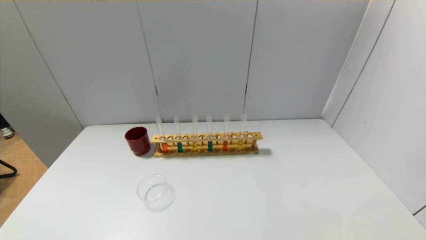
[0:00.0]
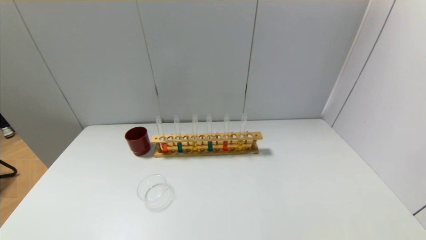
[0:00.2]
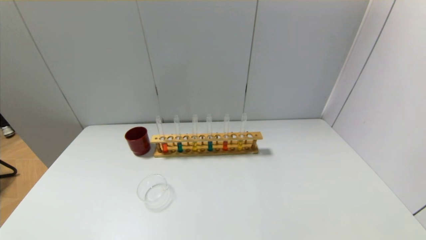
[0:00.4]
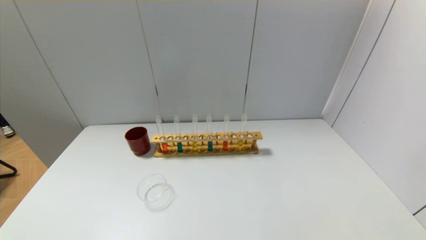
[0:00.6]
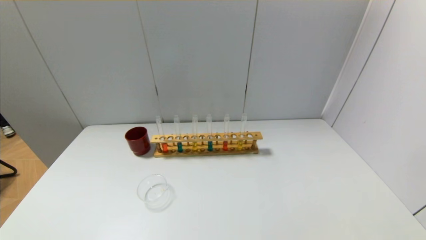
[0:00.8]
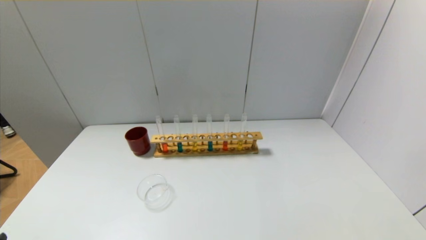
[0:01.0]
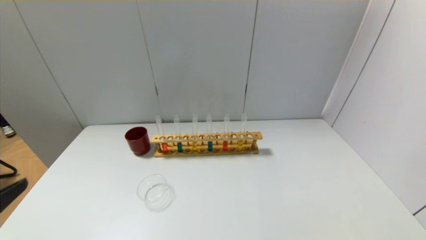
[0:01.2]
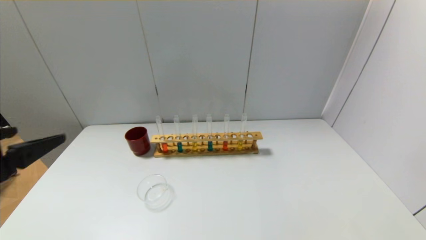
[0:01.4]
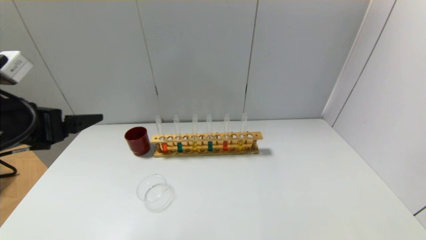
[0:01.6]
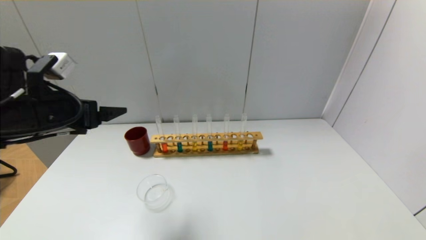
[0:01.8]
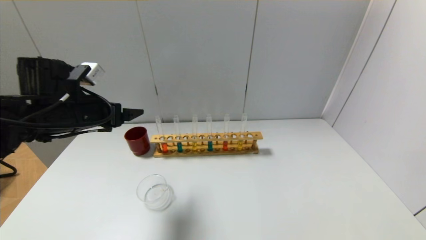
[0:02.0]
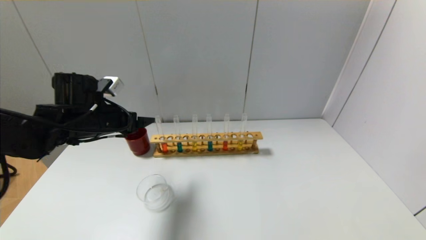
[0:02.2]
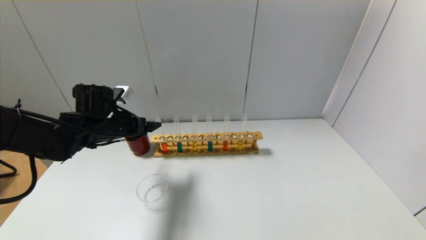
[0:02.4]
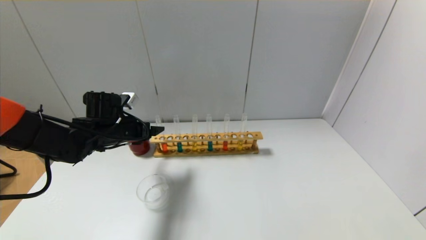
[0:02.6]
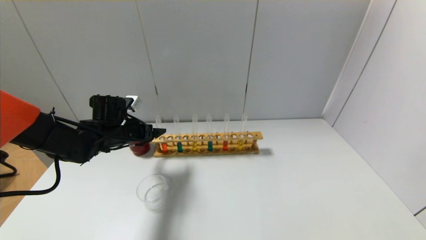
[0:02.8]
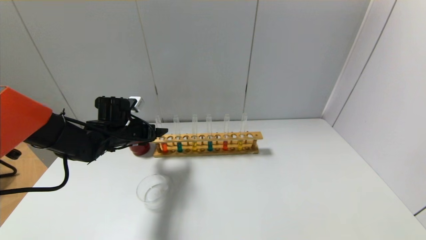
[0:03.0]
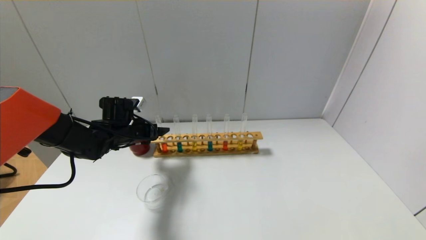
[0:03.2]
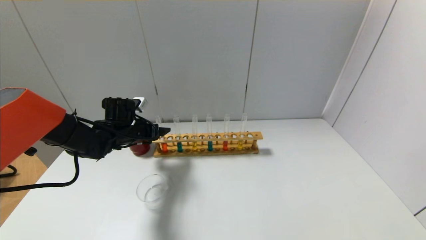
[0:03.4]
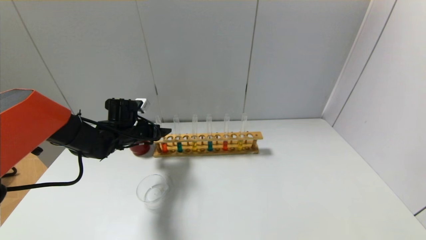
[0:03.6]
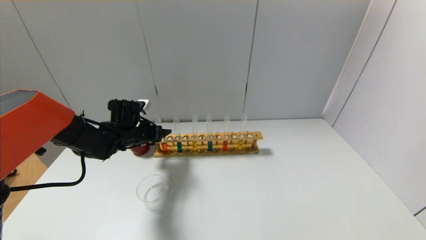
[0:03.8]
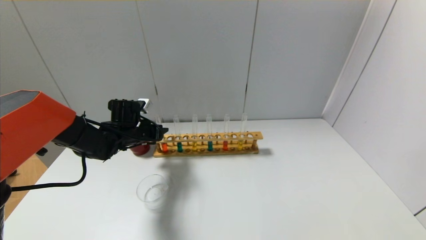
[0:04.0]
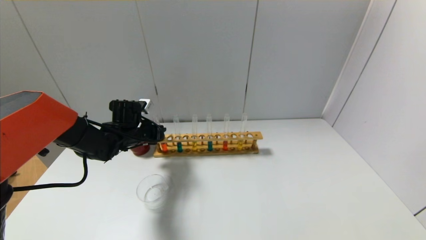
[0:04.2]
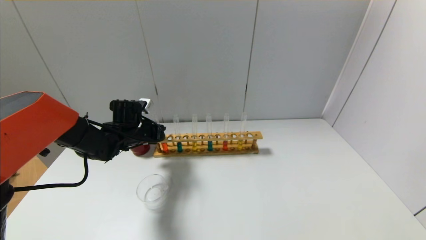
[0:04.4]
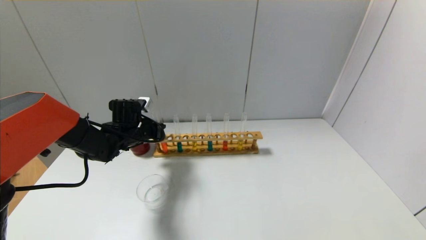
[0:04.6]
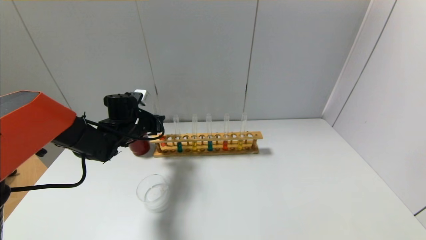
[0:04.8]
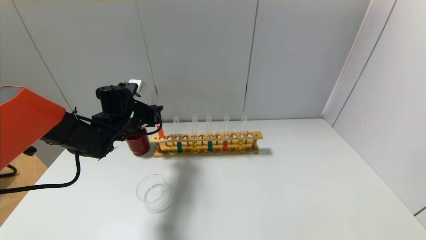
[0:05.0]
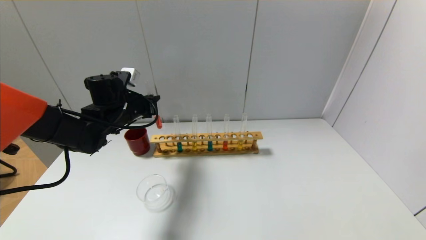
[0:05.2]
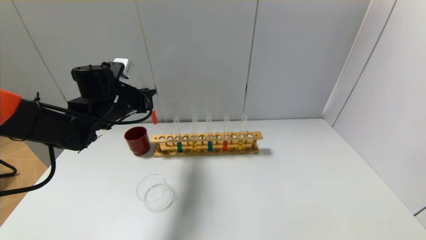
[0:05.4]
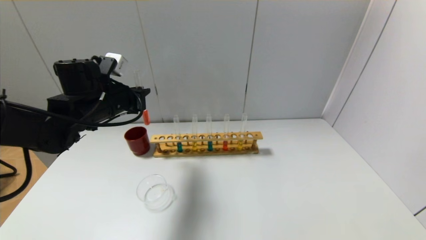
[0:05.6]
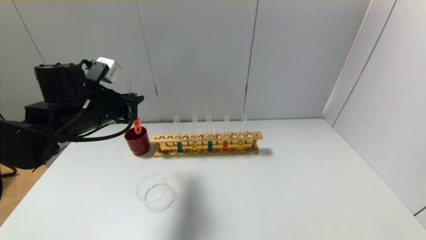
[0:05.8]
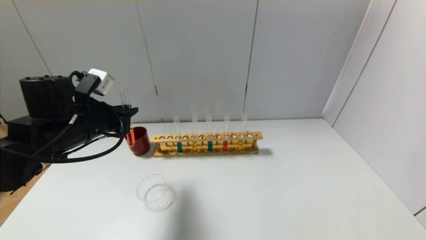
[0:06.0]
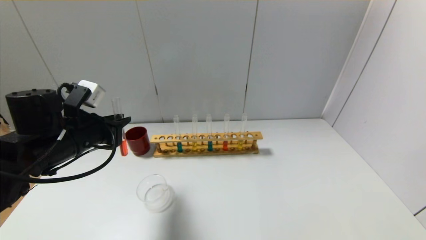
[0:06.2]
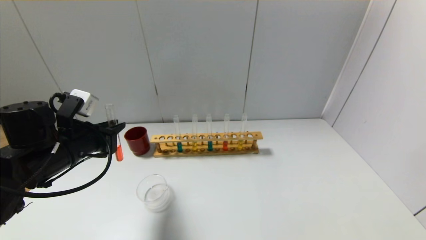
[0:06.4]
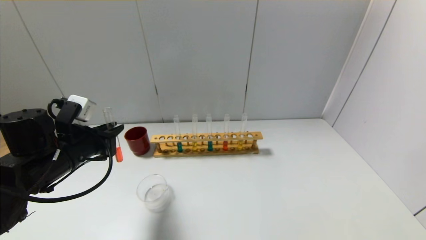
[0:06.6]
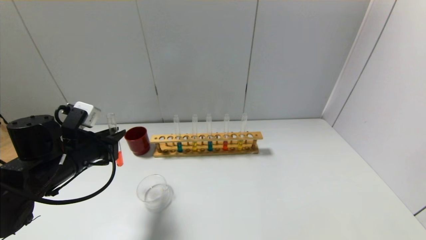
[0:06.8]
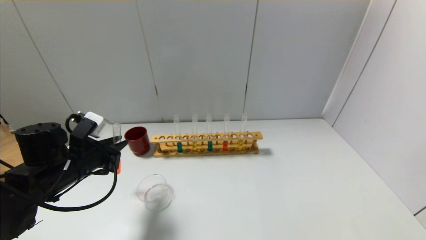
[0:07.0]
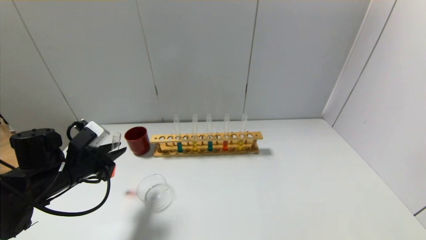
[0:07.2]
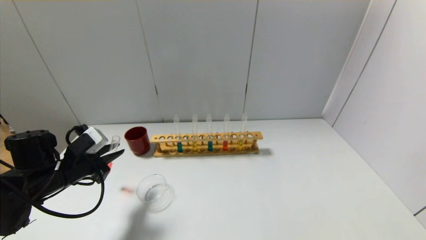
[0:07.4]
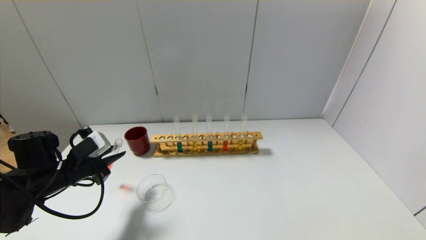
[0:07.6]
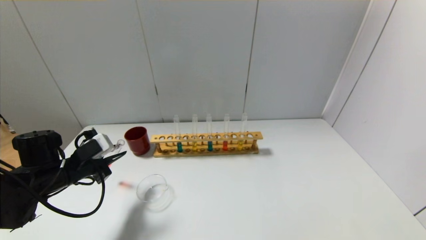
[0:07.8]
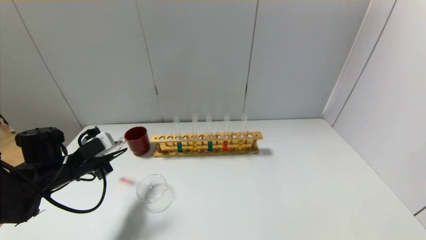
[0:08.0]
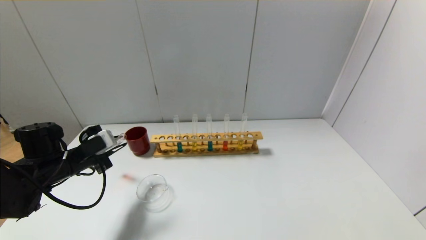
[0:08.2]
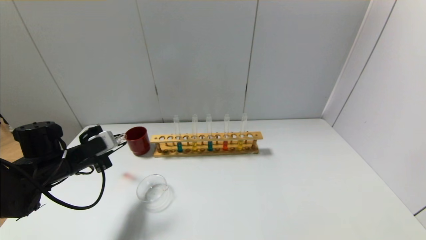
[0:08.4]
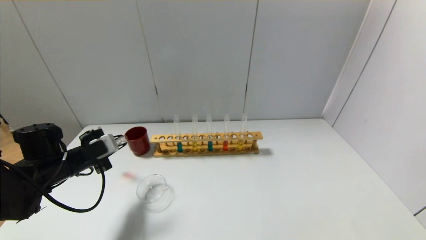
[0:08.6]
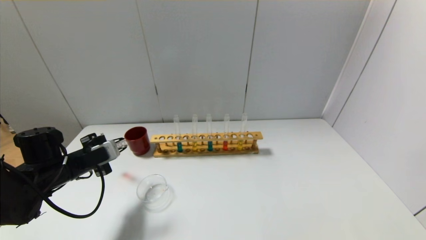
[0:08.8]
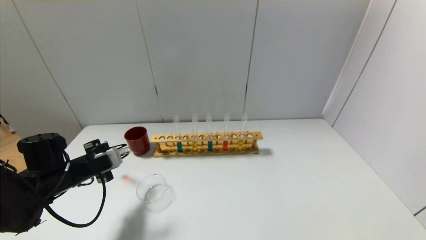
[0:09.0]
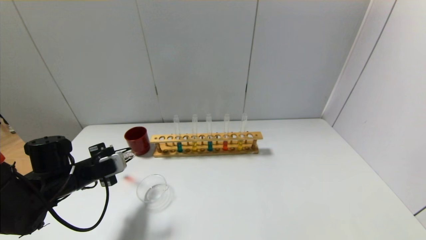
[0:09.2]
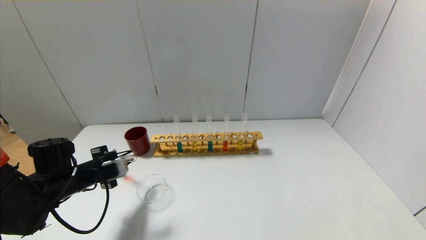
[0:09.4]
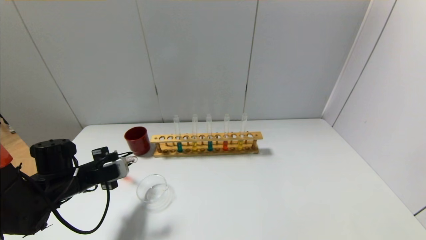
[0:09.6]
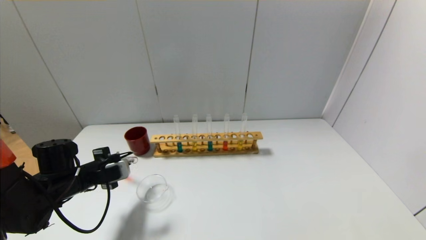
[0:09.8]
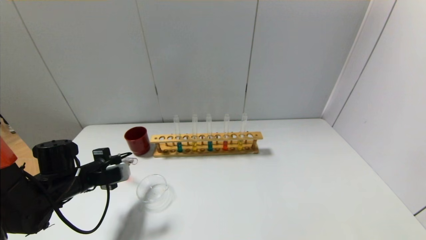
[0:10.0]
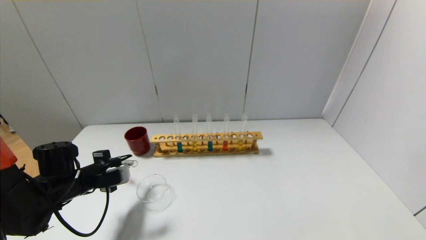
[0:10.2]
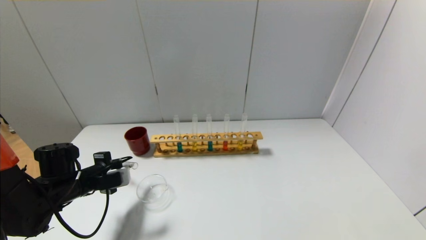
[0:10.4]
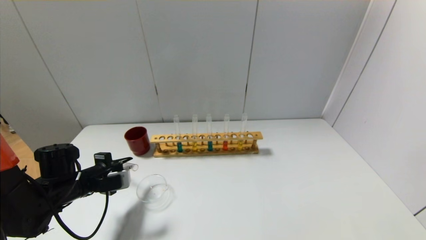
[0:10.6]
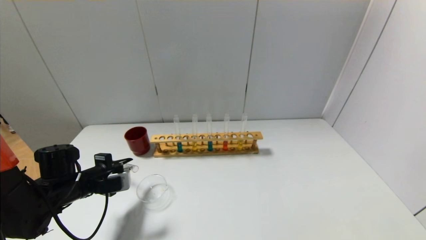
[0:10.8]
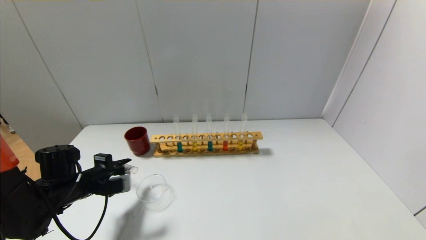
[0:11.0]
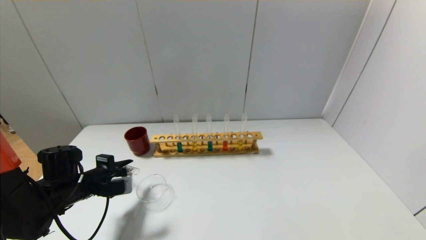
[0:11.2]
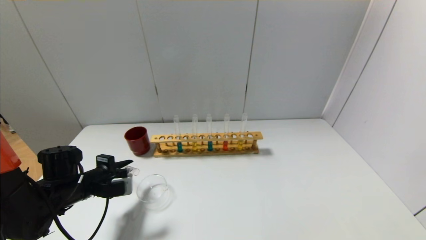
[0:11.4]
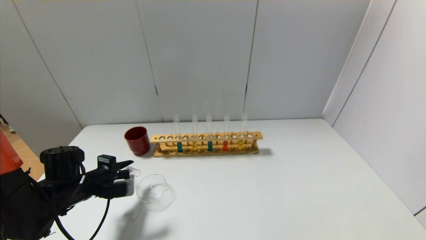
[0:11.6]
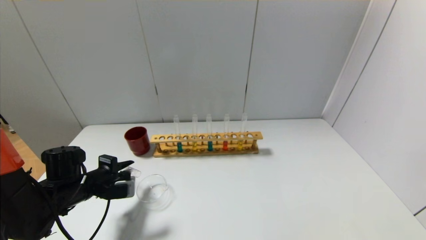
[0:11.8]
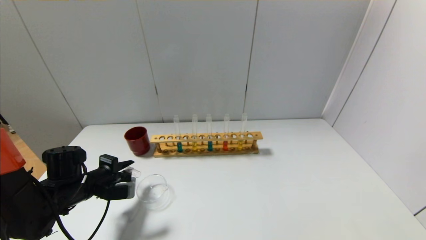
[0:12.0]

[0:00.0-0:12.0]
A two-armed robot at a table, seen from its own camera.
Step, 0.0 to 4.2 s: Grasp the red reagent with the left gripper.
0.0 to 1.6 s: The left gripper travels forward and upward by some 30 cm.
1.6 to 3.0 s: The left gripper travels forward and downward by approximately 25 cm.
3.0 to 4.4 s: The left gripper closes up.
4.4 to 6.0 s: The left gripper is displaced backward and upward by about 15 cm.
6.0 to 7.6 s: The left gripper travels downward and to the left by approximately 10 cm.
9.0 to 10.4 s: The grippers make only small movements.
10.4 to 12.0 s: The grippers make only small movements.

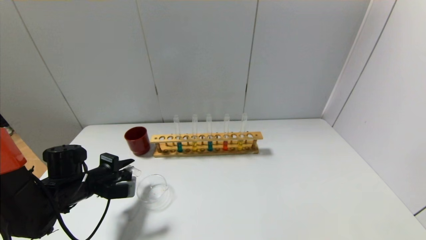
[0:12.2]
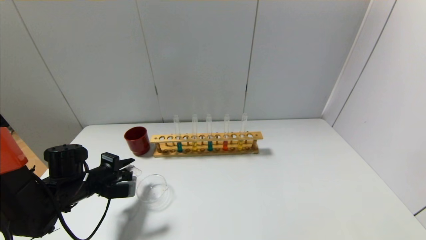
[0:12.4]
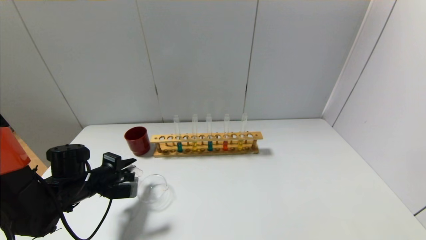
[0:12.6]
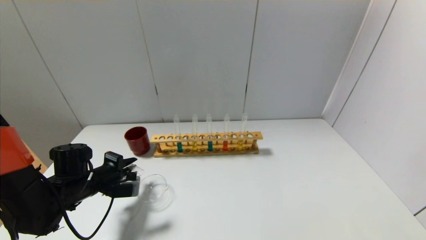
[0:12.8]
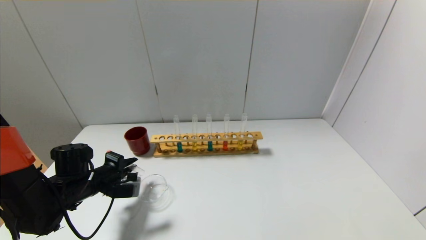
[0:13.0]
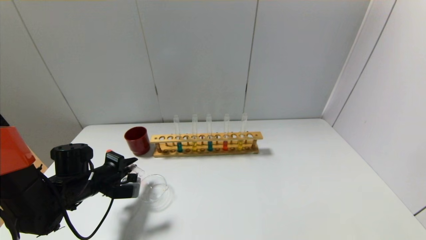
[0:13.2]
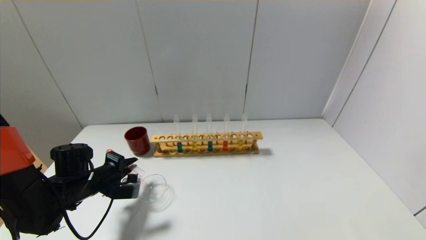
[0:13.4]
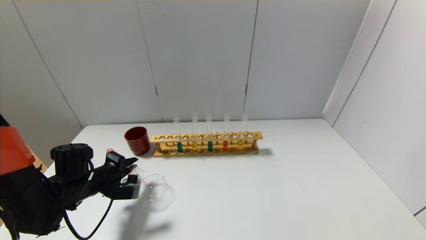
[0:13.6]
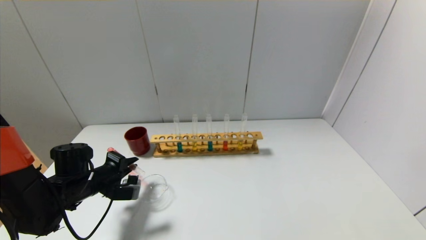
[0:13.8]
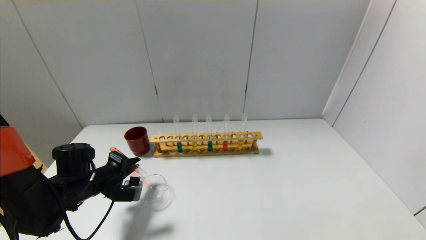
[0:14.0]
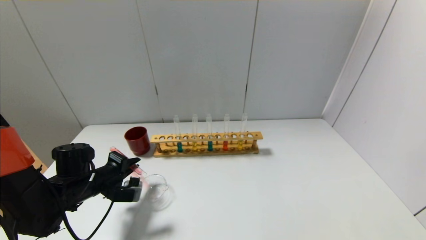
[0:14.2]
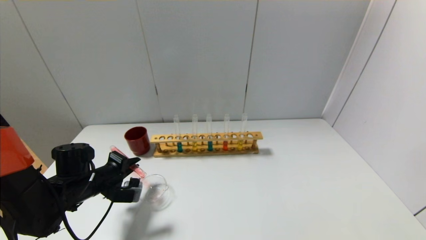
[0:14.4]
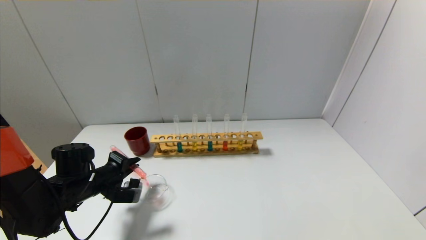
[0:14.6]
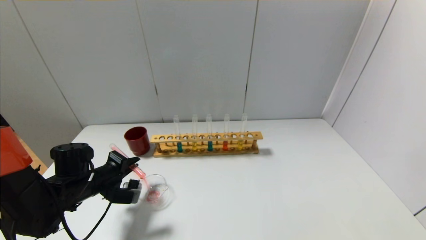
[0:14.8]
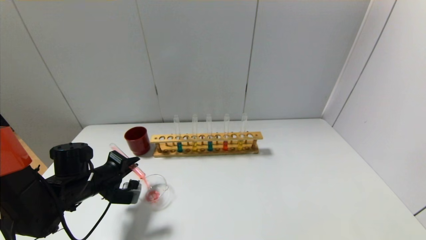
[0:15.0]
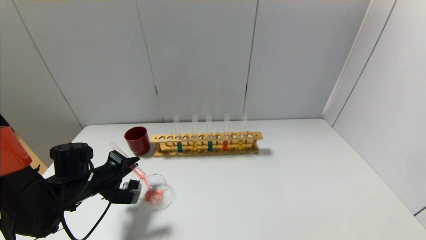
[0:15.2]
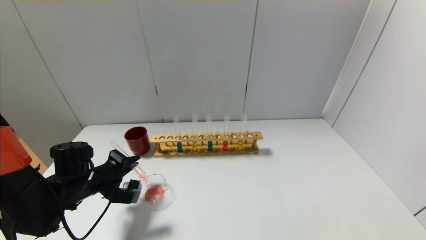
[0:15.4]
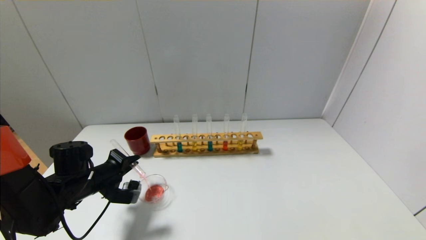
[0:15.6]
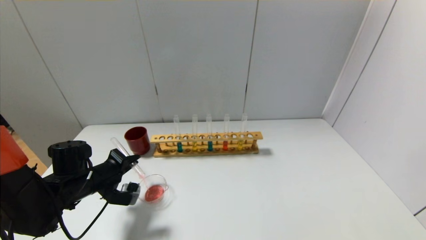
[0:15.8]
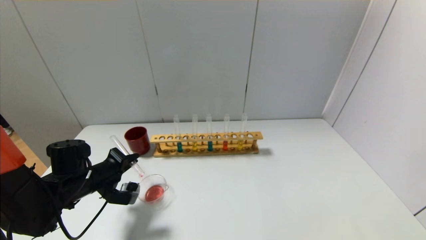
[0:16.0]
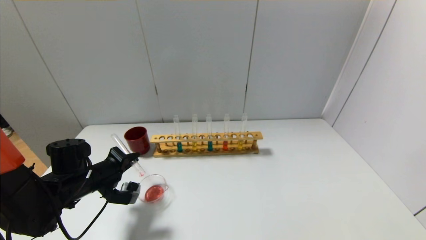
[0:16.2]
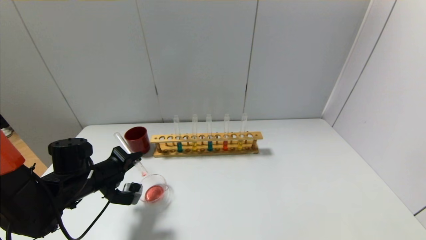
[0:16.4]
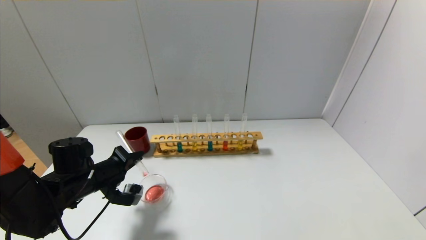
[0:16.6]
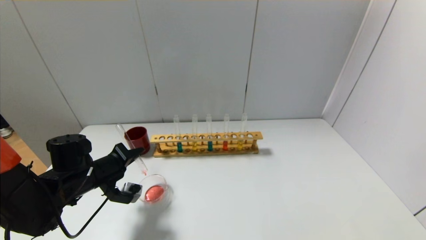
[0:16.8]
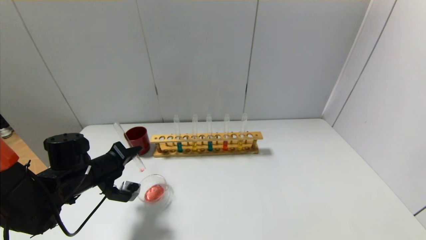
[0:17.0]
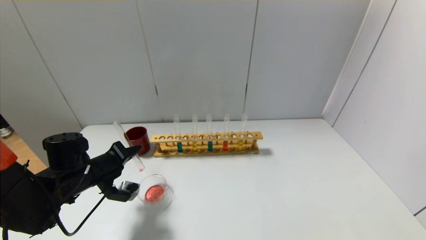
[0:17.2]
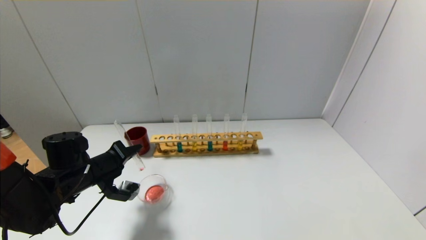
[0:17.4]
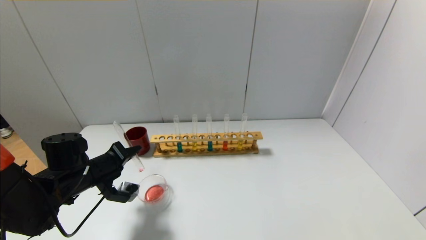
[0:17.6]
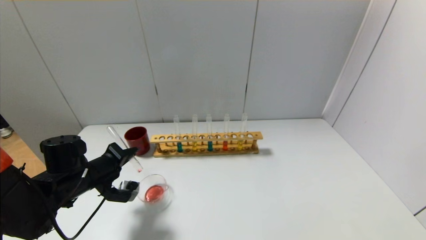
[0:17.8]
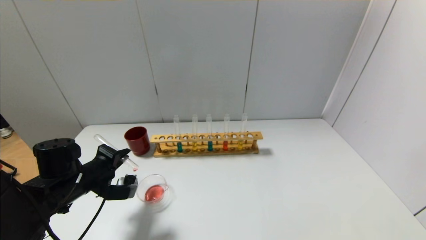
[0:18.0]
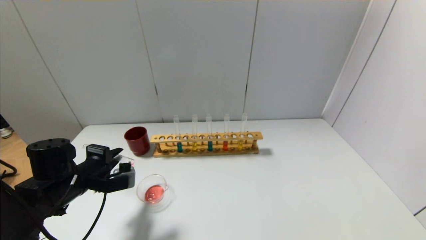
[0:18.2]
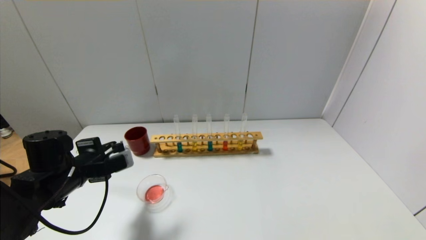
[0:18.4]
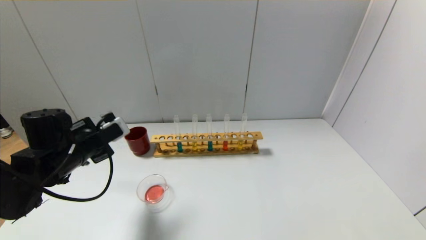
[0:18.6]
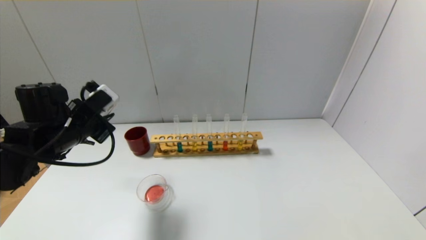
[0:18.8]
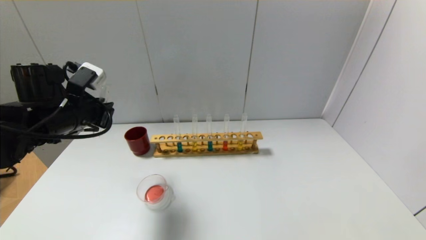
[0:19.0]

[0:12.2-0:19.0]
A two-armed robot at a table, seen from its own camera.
Step, 12.2 to 18.0 s: Pour the red reagent into the graduated cylinder with the left gripper.
12.2 to 15.0 s: The grippers make only small movements.
15.0 to 16.2 s: The grippers move only a little.
16.2 to 17.6 s: The grippers stay close to where they were, moving slightly.
17.6 to 19.0 s: The left gripper goes roughly 15 cm upward.
